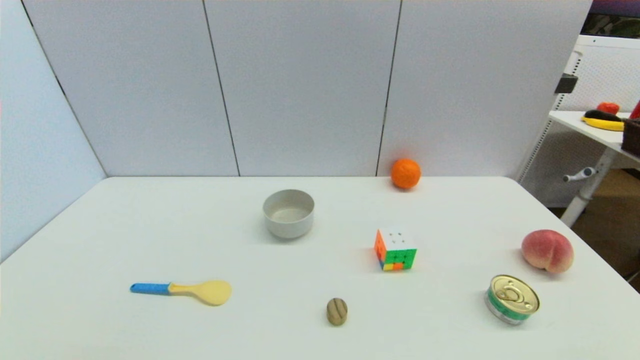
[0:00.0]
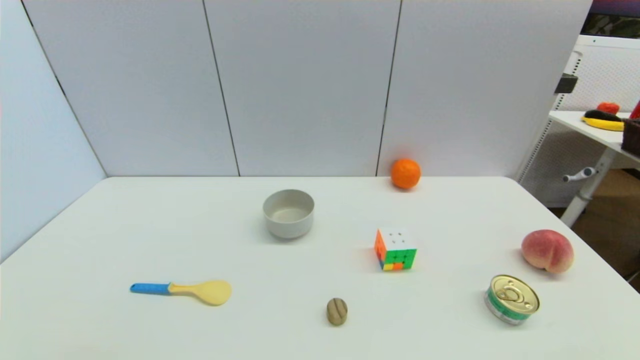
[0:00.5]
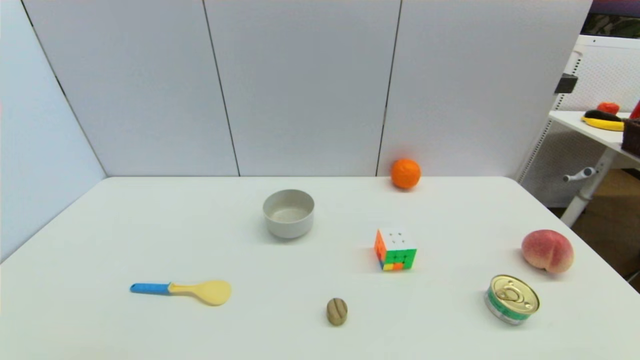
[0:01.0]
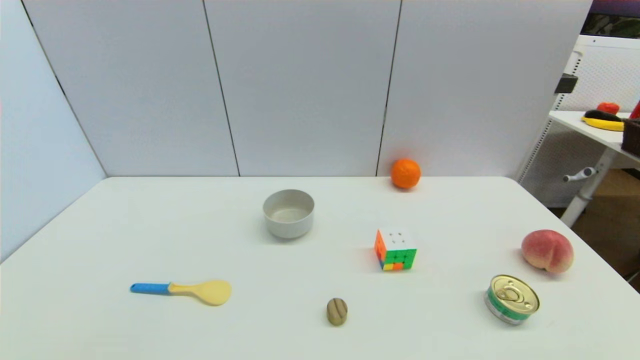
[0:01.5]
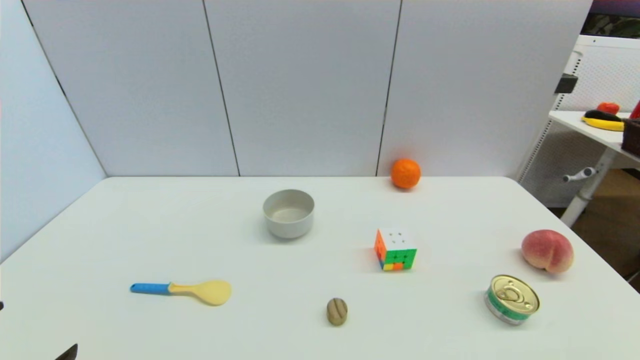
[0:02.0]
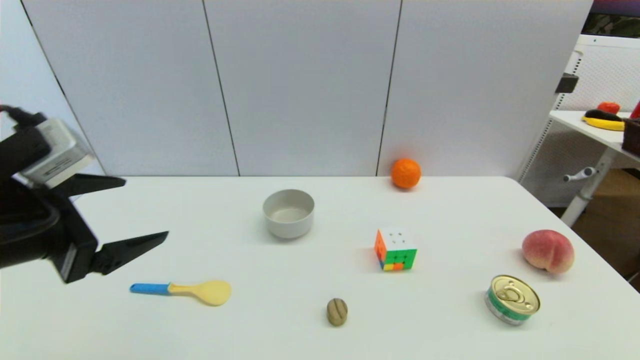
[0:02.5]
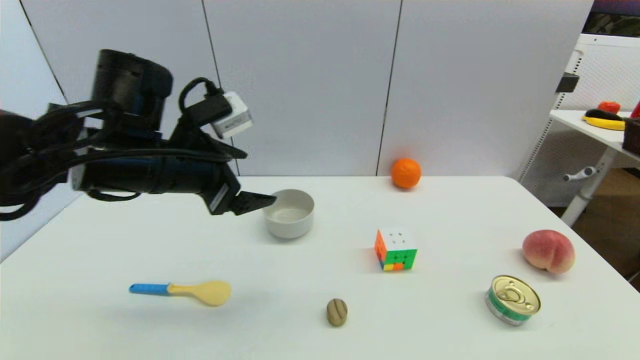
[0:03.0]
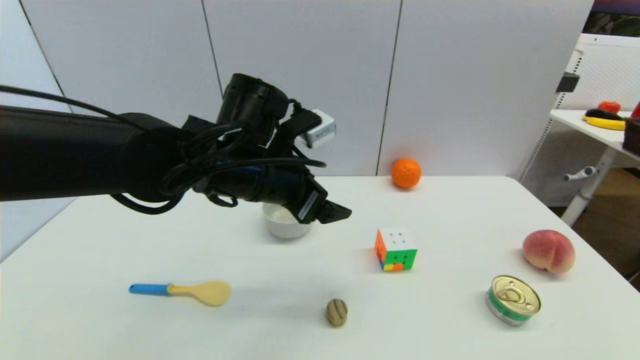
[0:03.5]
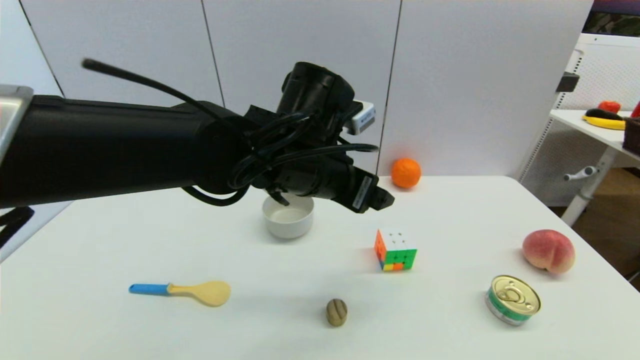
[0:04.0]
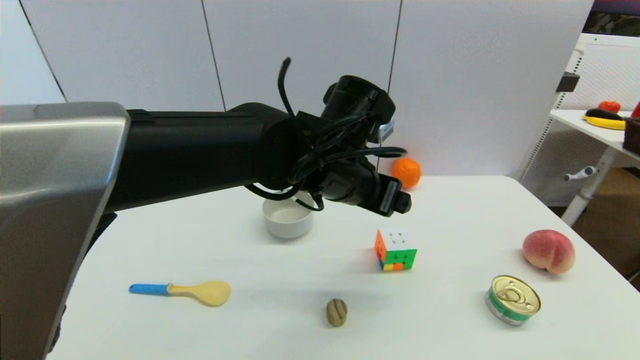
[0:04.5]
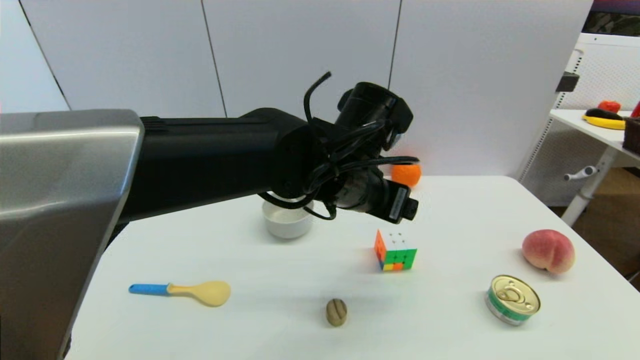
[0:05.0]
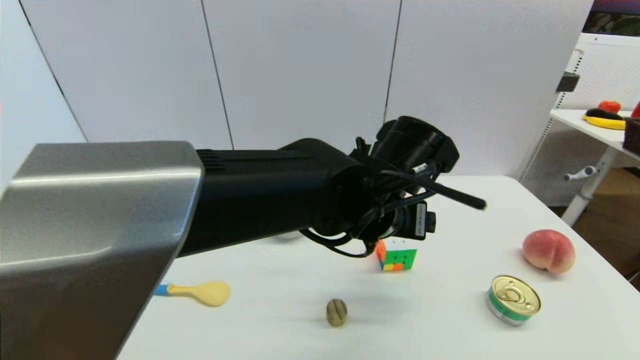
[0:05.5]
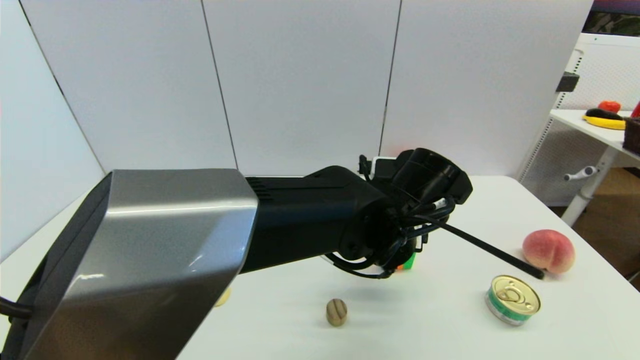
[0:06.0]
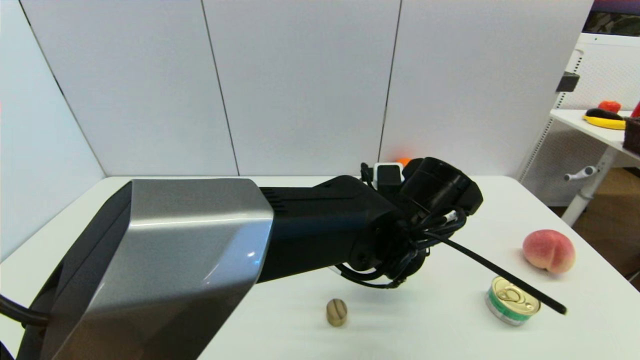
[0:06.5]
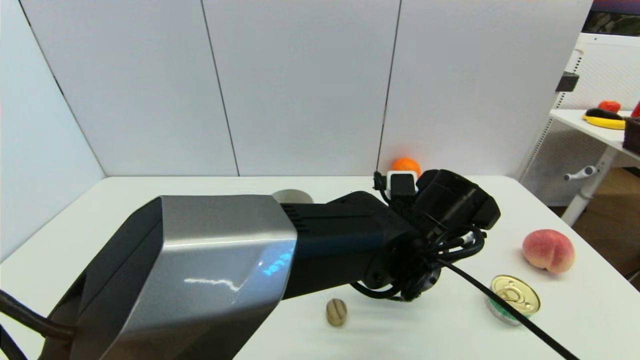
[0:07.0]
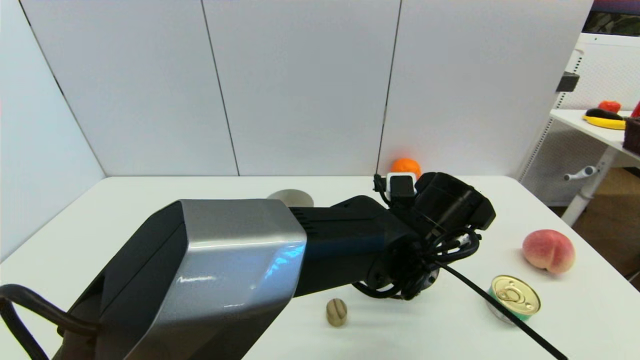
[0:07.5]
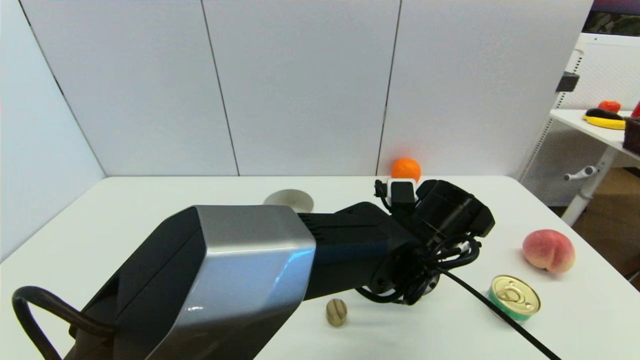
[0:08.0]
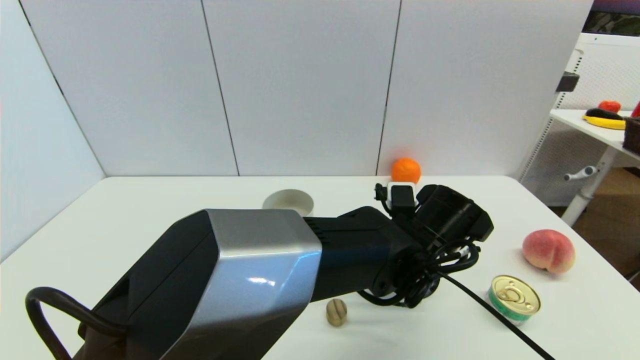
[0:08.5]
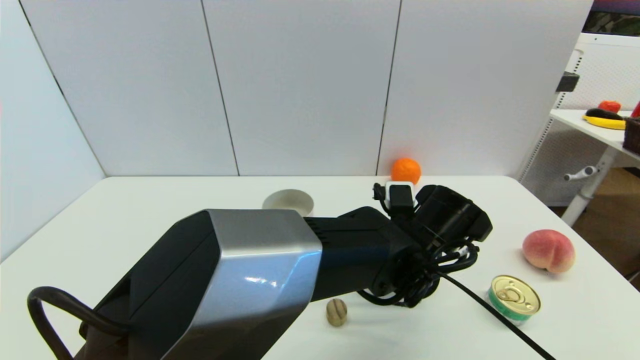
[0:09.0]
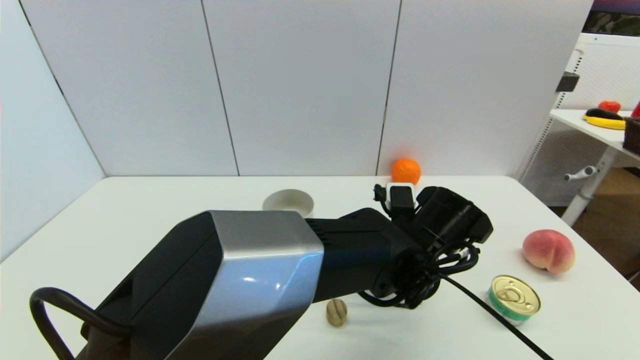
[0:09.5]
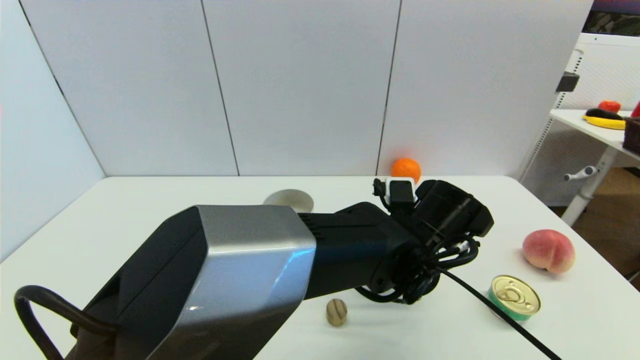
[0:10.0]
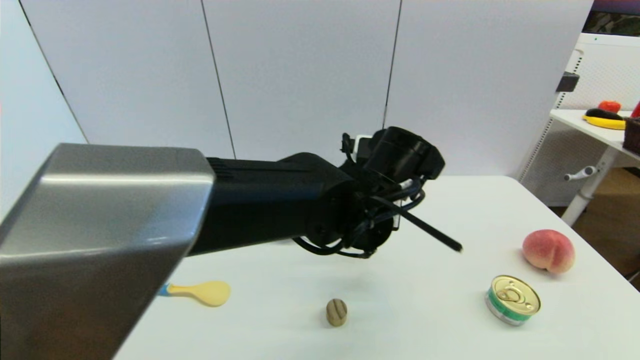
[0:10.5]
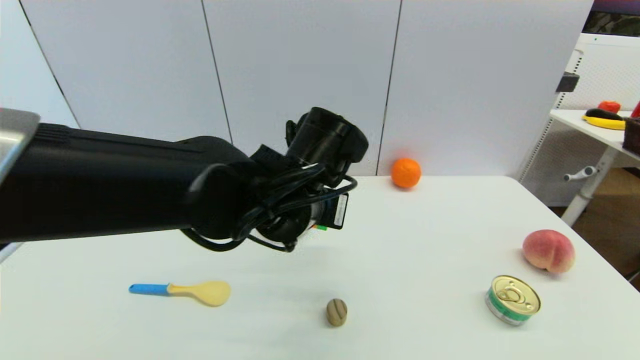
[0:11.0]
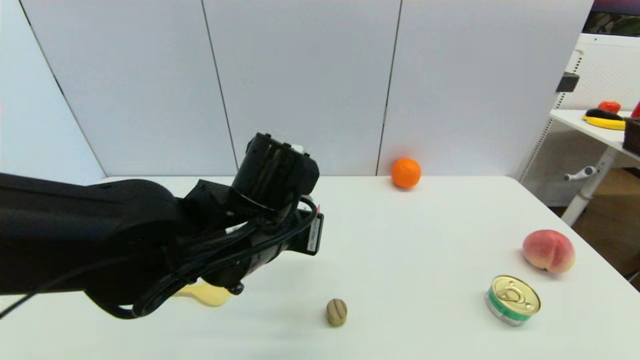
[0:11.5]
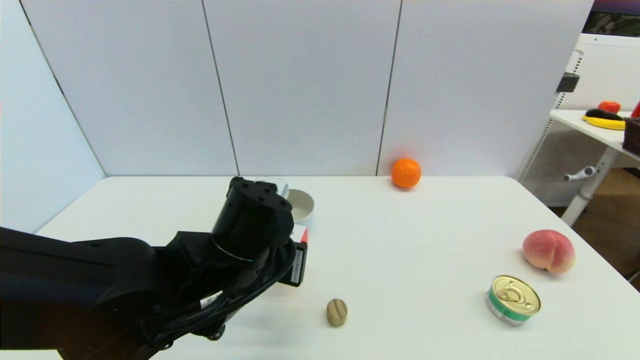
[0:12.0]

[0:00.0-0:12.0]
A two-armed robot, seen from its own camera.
Step, 0:02.0 to 0:09.5: Grasp the magic cube with left gripper.
0:02.0 to 0:04.0: The left gripper travels to the right and forward by some 40 cm.
0:04.0 to 0:06.0: The left gripper travels to the right and downward by roughly 10 cm.
0:08.0 to 0:10.0: The left gripper closes up.
0:10.0 to 0:12.0: The left gripper goes roughly 20 cm to the left.

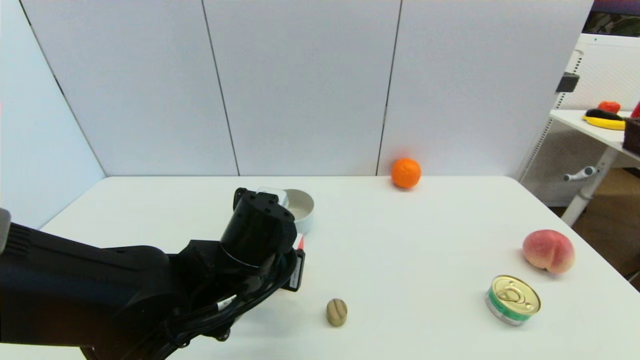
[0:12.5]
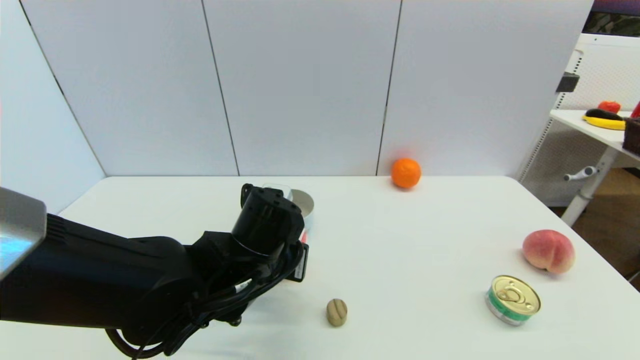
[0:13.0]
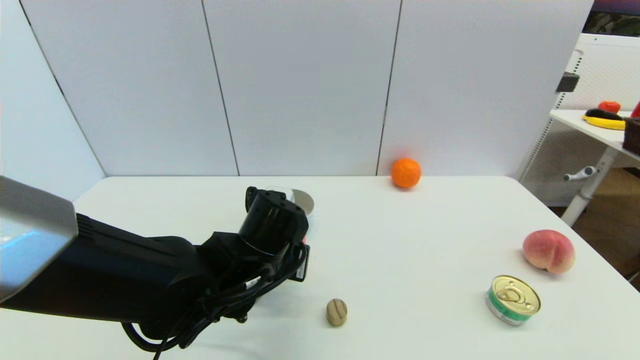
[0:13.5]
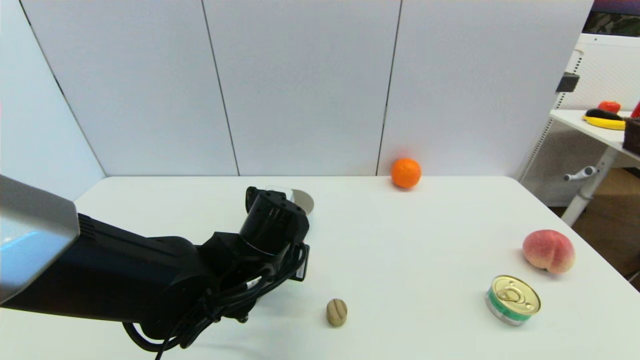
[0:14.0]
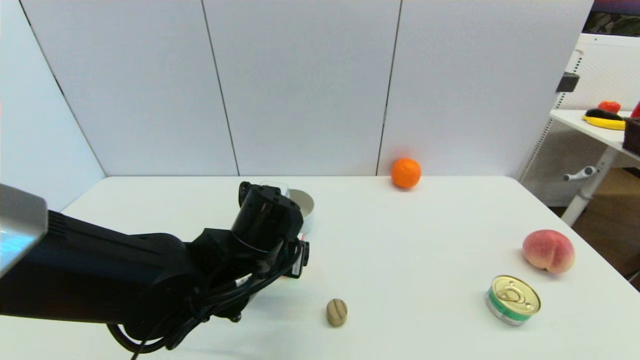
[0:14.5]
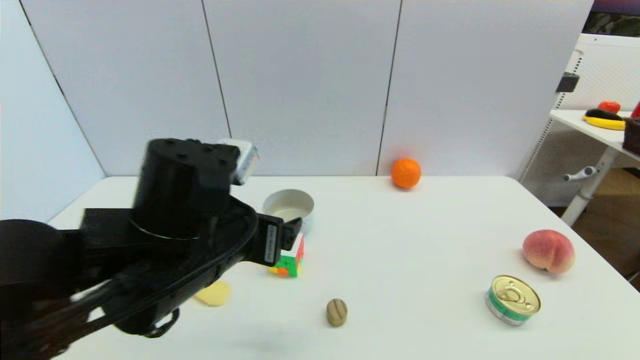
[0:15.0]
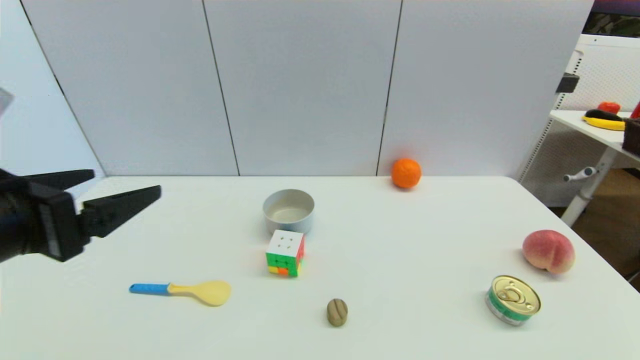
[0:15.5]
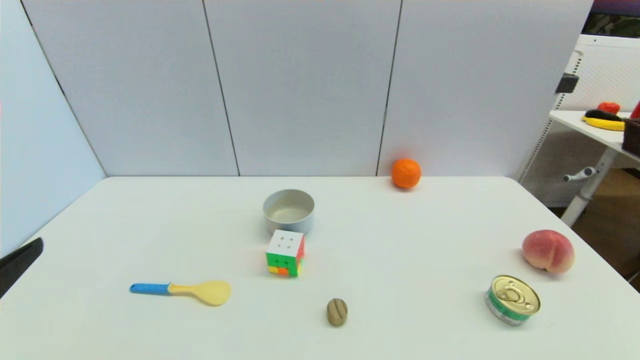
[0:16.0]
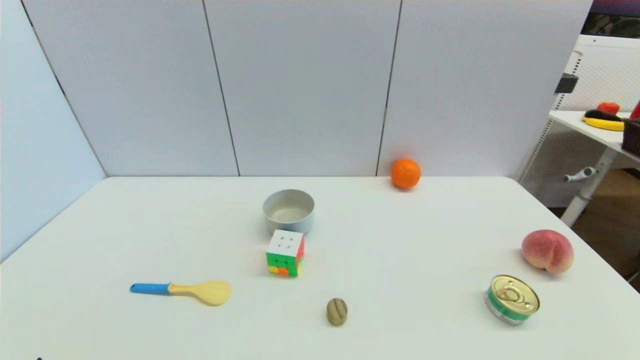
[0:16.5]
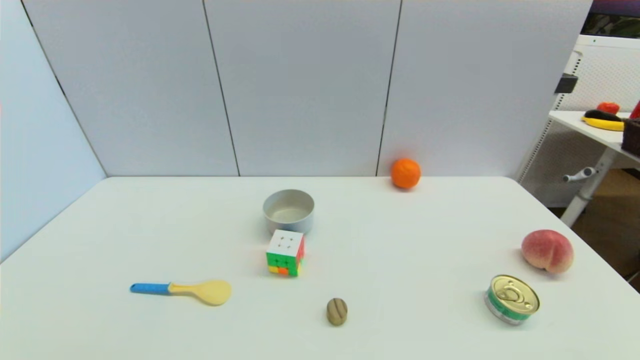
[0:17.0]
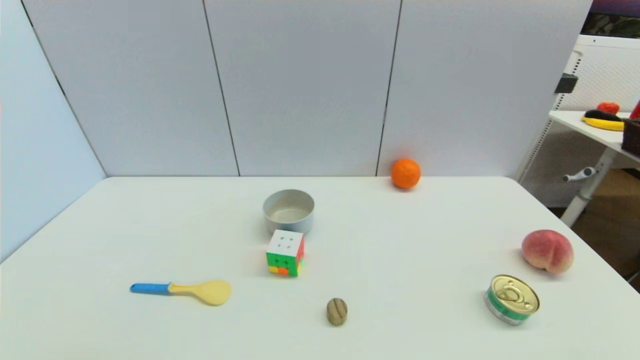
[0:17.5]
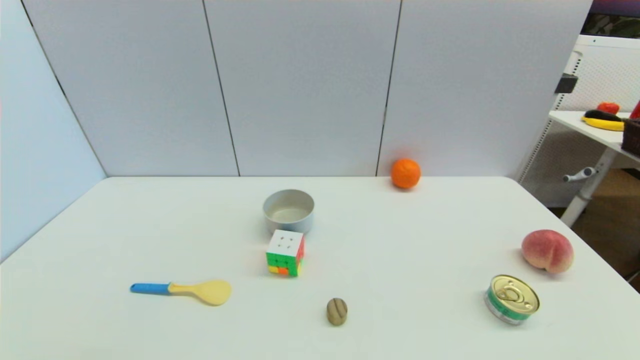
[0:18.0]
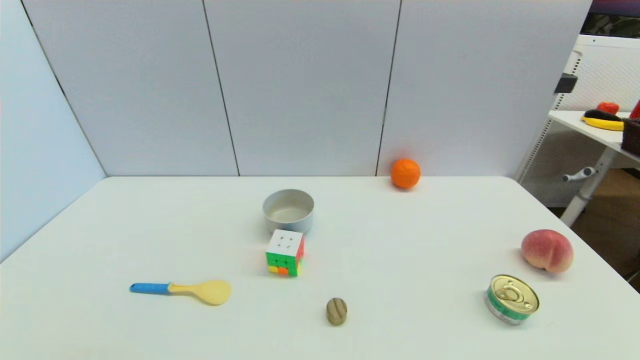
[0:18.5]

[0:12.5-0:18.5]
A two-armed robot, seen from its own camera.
Step, 0:12.5 to 0:14.5: Place the magic cube on the table with left gripper.
0:12.5 to 0:14.5: The left gripper opens.
0:14.5 to 0:16.5: The left gripper shifts some 35 cm backward and to the left.
